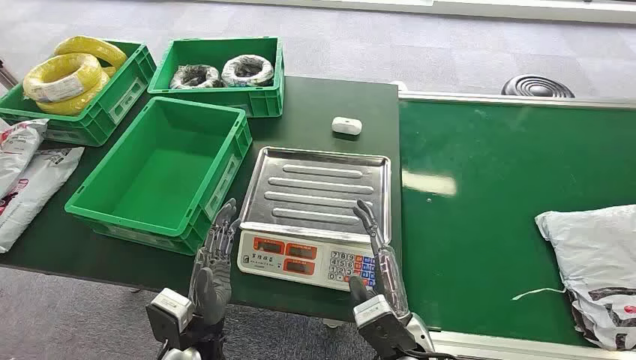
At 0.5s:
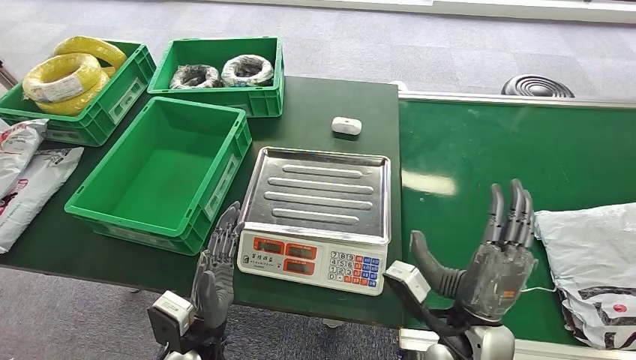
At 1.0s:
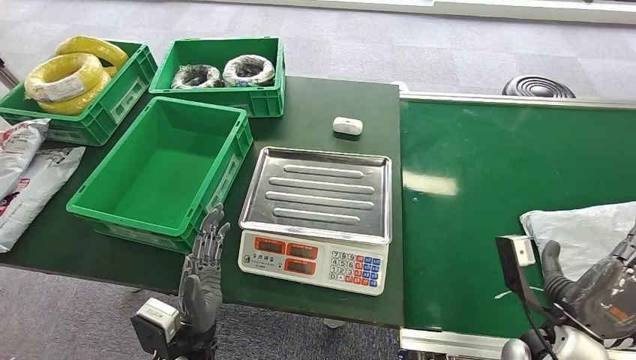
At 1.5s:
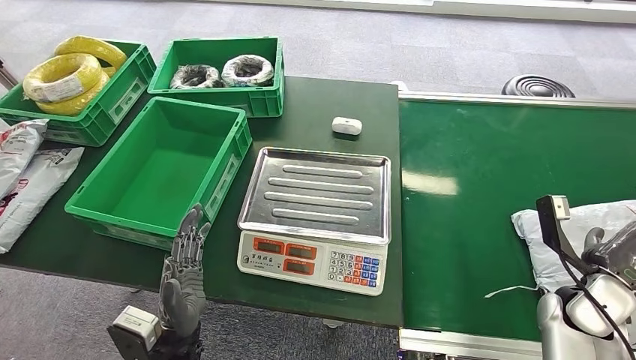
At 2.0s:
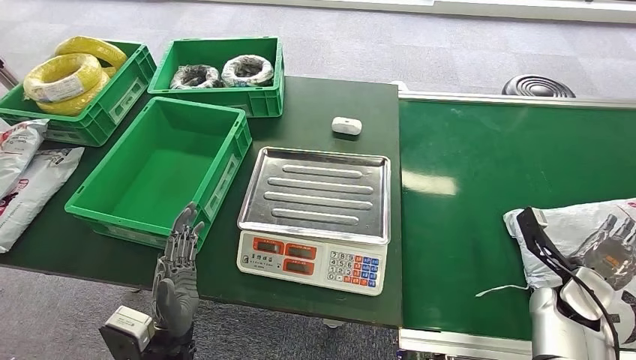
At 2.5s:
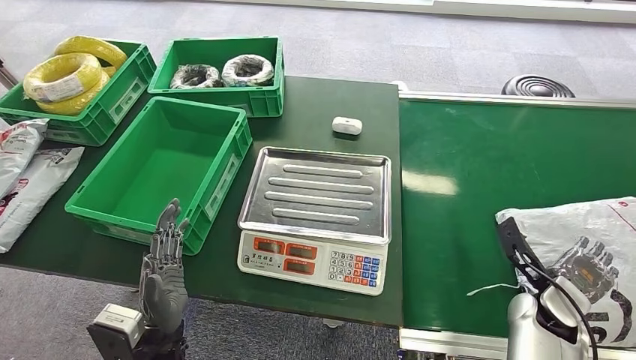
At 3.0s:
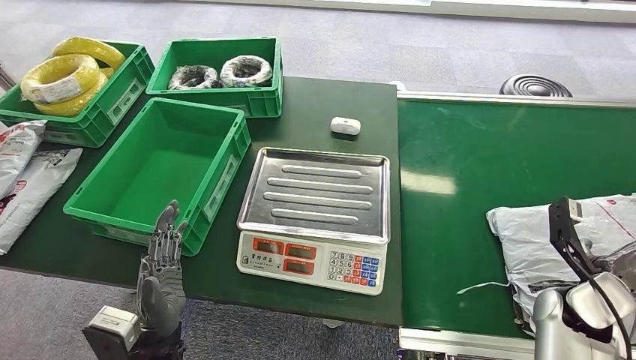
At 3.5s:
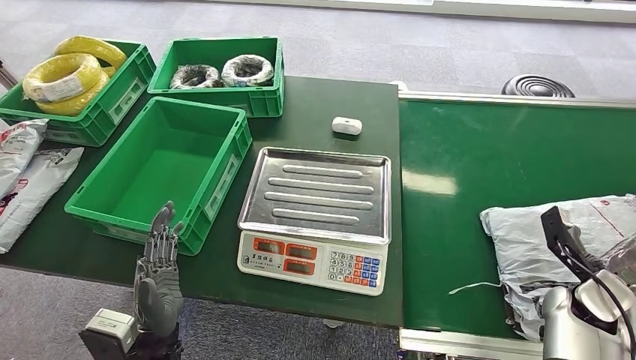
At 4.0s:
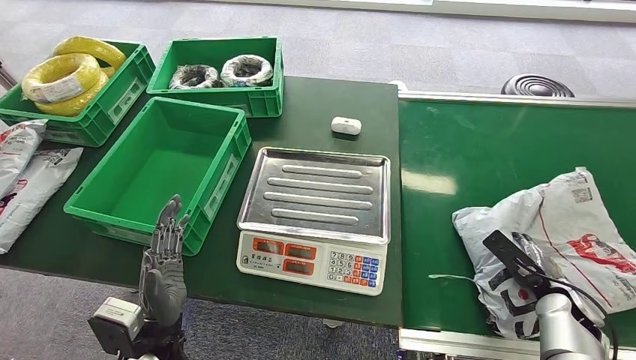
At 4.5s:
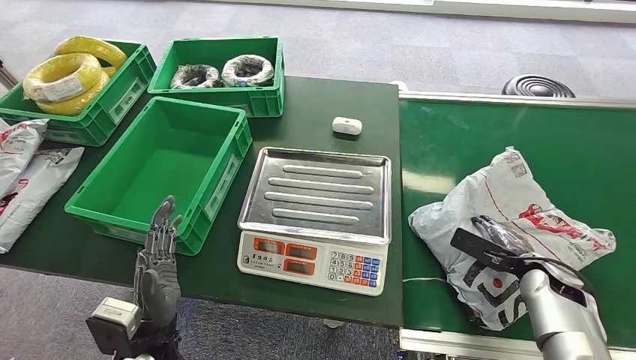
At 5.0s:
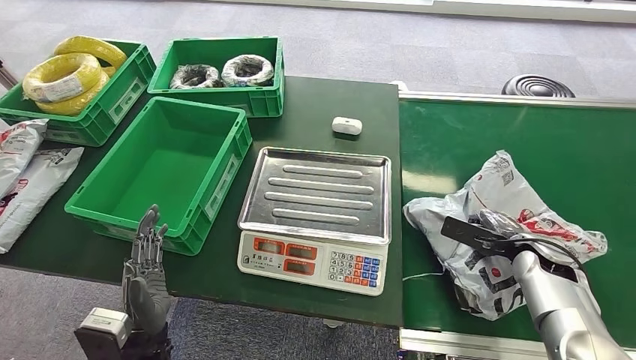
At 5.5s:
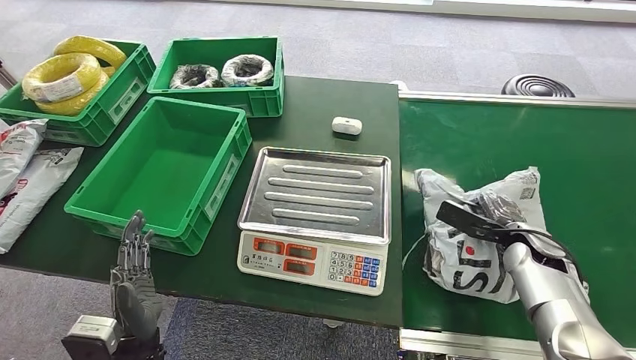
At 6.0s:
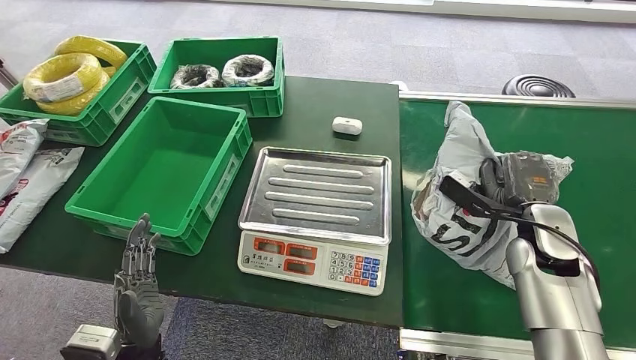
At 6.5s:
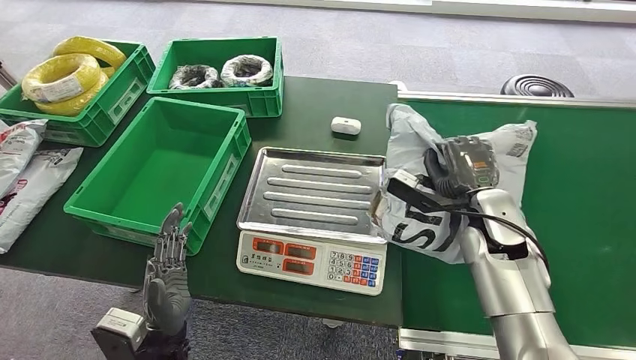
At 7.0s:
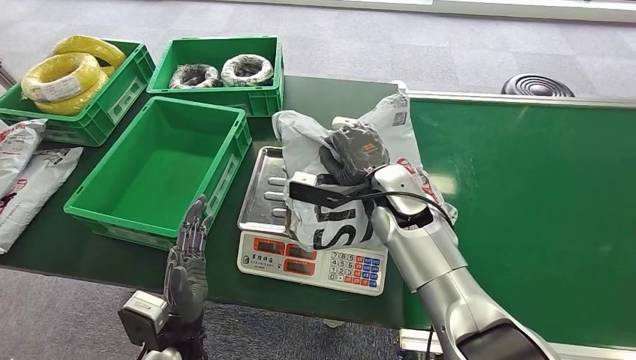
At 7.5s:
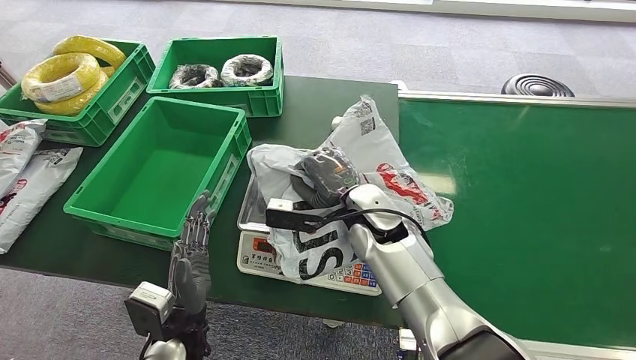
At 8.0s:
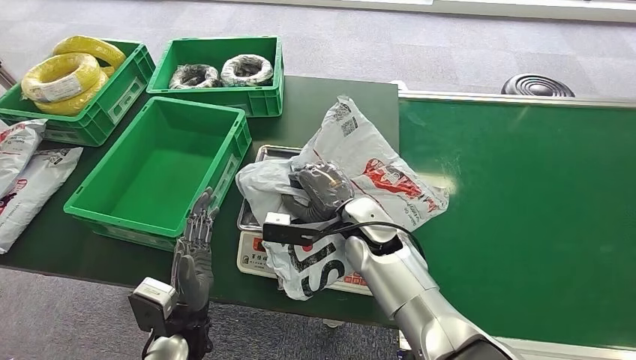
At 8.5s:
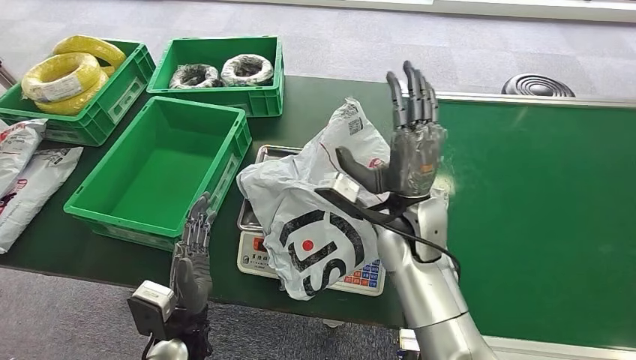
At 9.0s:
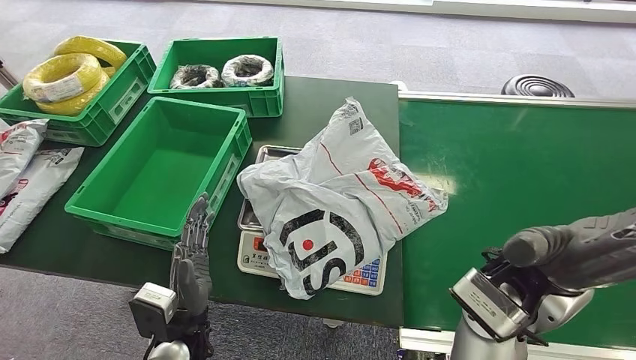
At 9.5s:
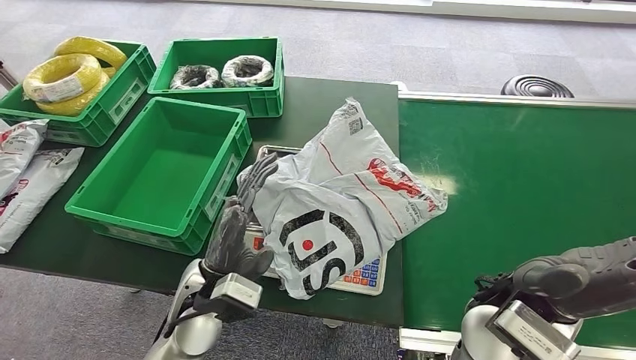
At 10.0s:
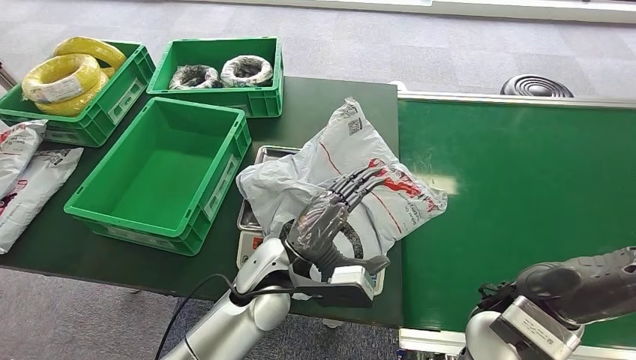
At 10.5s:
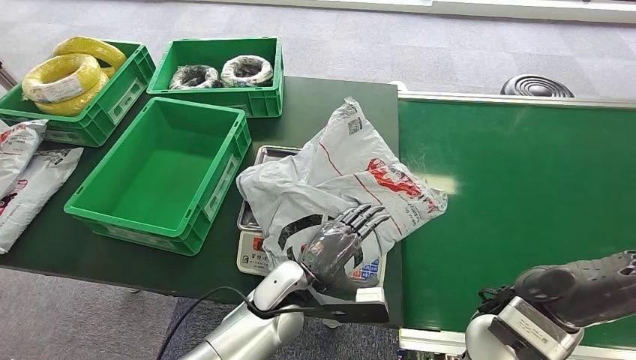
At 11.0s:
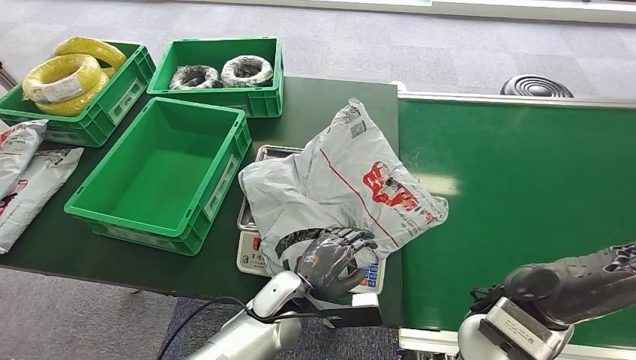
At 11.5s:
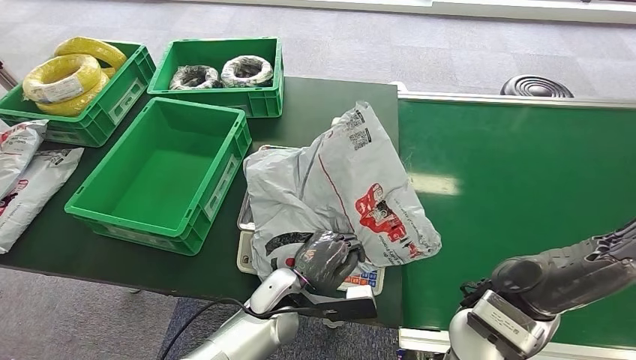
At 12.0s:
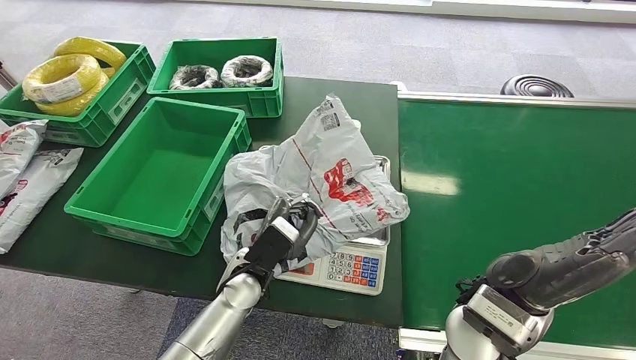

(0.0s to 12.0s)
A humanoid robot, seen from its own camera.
Step, 0.0s - 6.0s: Pick up the package from the conveyor belt.
Step, 6.5s - 8.5s: Place the package onto the inbound machine.
4.0s - 6.0s: The right hand goes roughly 15 cm upward, to the left and forward.
8.0s - 10.0s: The left hand shifts approximately 15 cm to the right, upward and forward. The right hand is displaced backward, to the right and upward by roughly 20 cm.
10.0s - 12.0s: The left hand moves downward, about 5 cm.

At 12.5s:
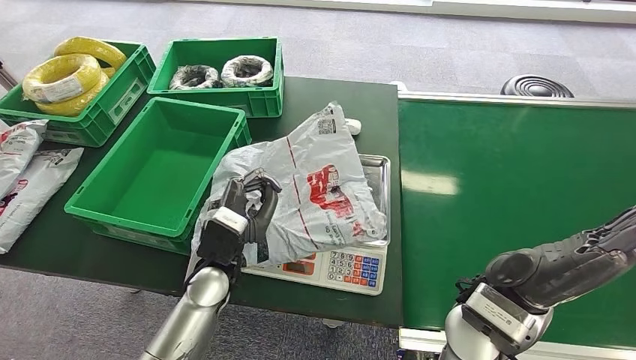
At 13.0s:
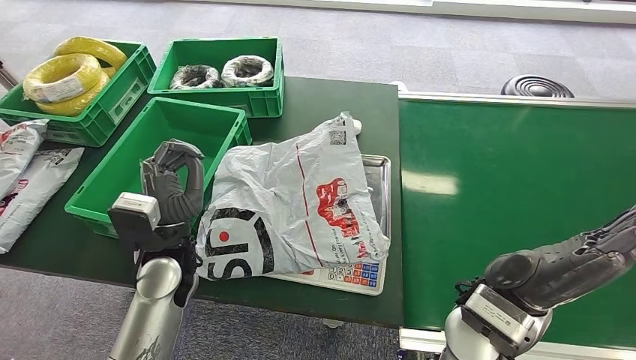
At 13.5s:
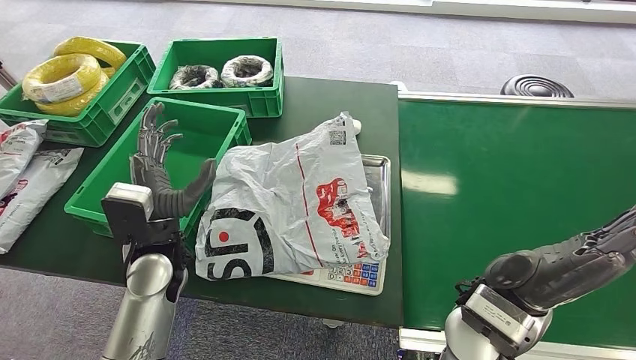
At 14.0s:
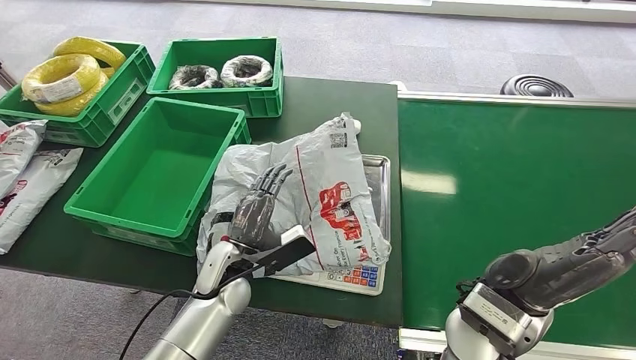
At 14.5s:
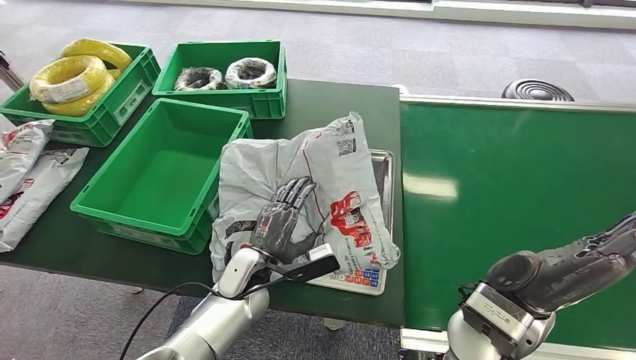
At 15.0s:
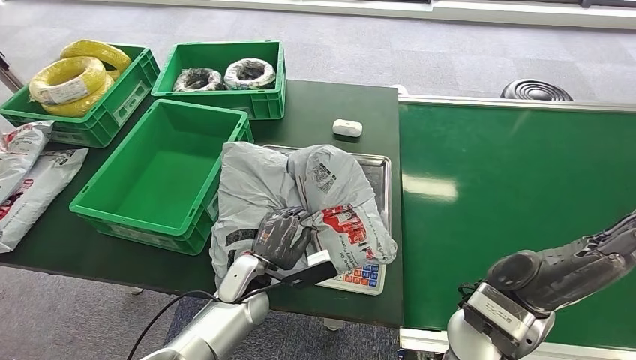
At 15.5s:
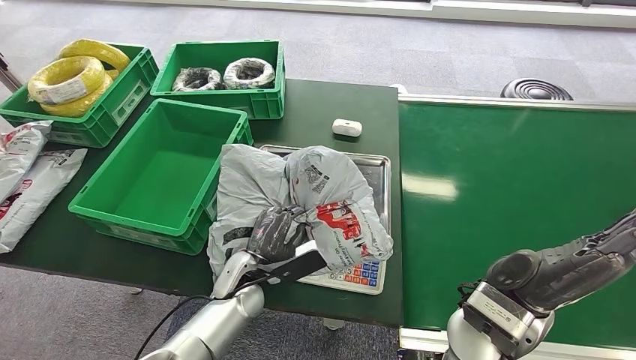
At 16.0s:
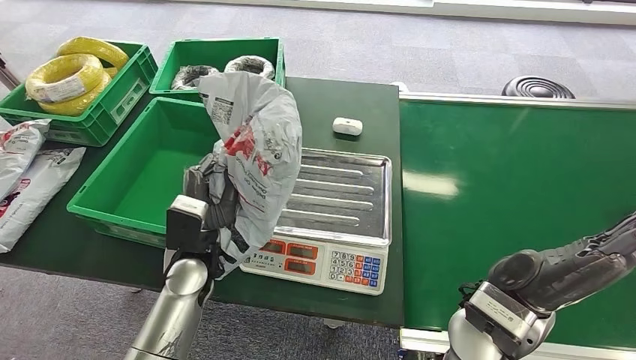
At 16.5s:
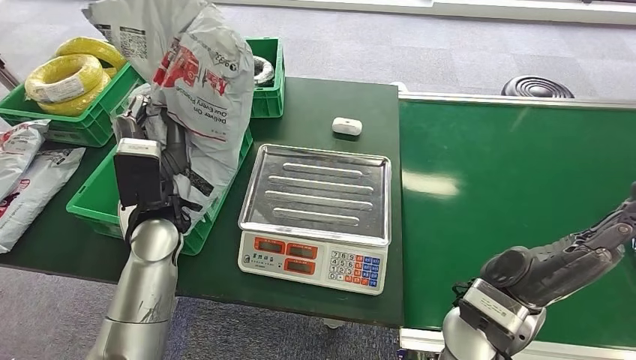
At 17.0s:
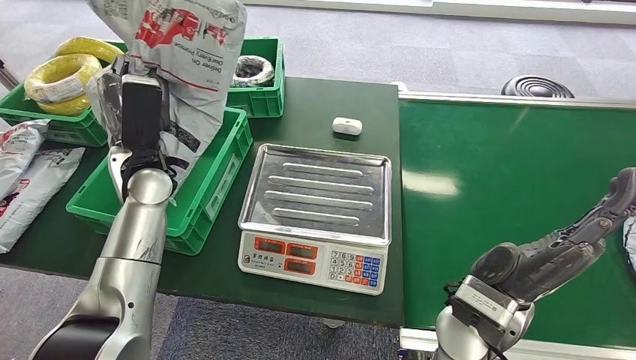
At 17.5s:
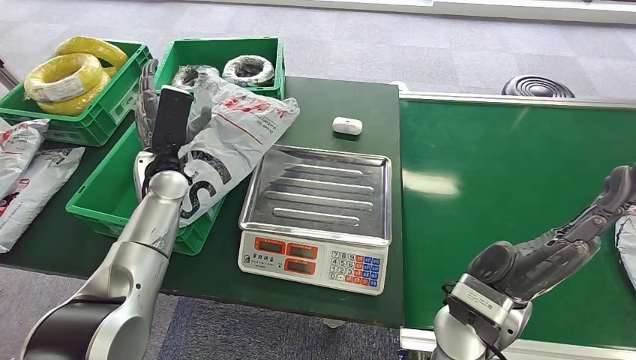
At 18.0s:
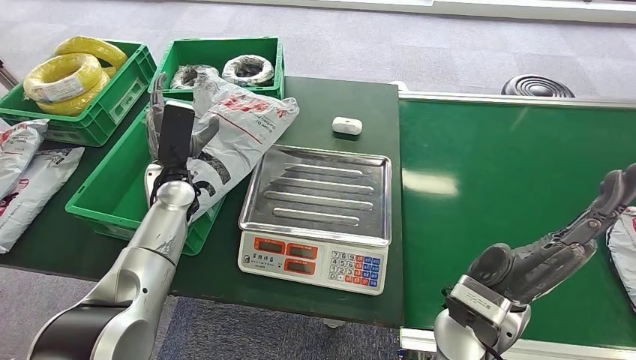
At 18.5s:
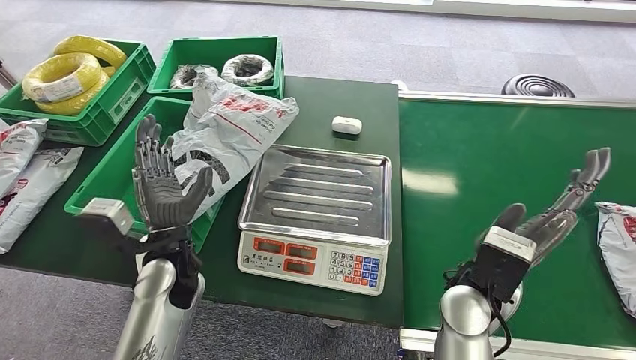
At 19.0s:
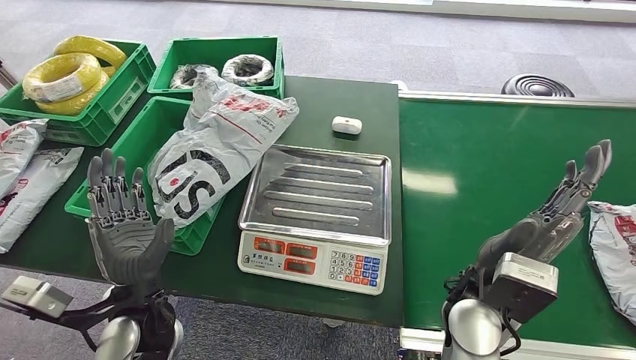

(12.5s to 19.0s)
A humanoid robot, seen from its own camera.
Step, 12.5s - 16.0s: Pick up the package from the inbound machine.
Step, 17.0s - 19.0s: Place the package into the parcel locker.
